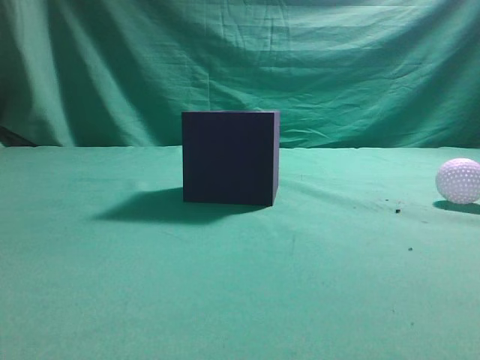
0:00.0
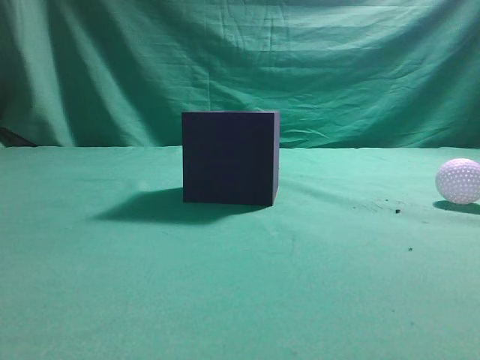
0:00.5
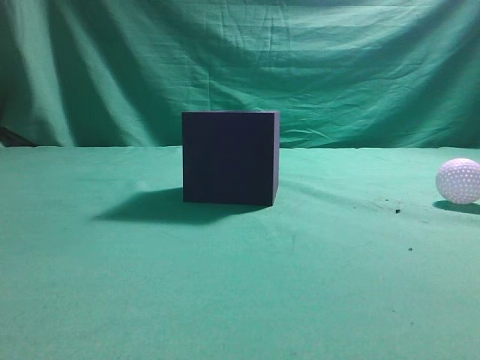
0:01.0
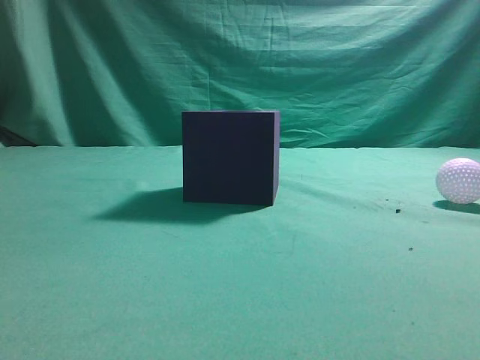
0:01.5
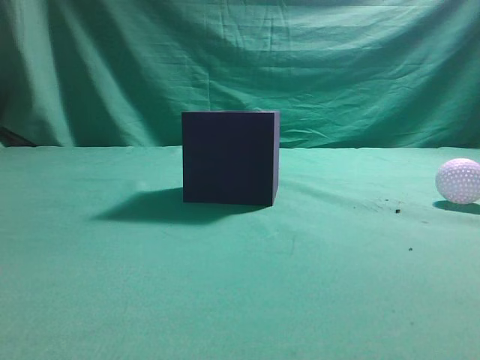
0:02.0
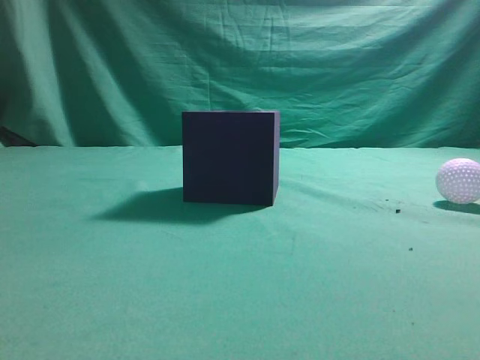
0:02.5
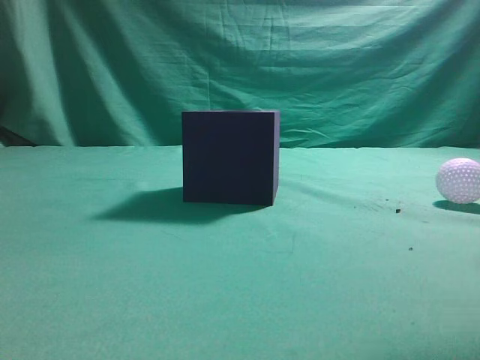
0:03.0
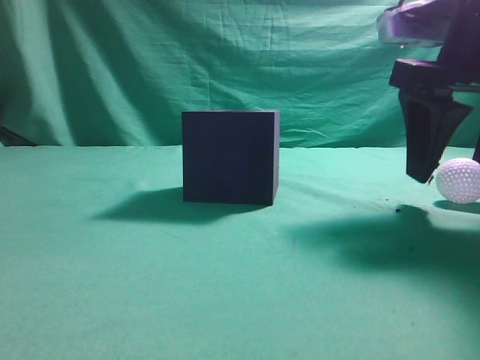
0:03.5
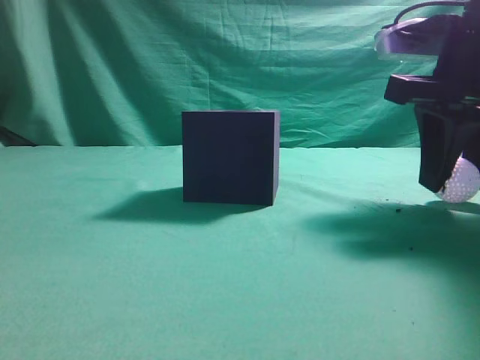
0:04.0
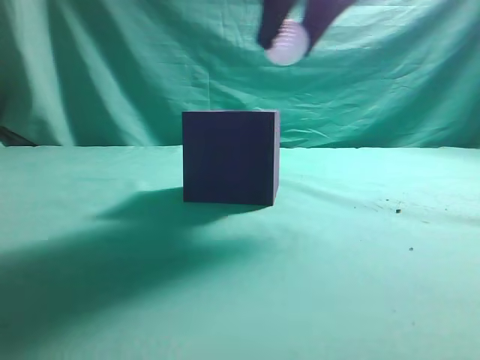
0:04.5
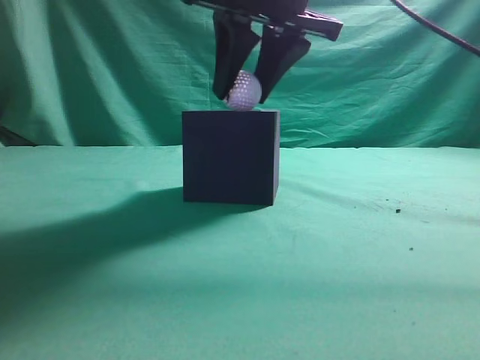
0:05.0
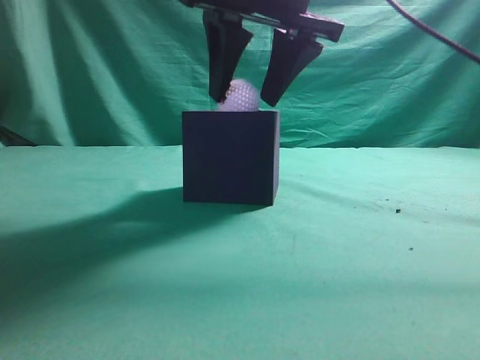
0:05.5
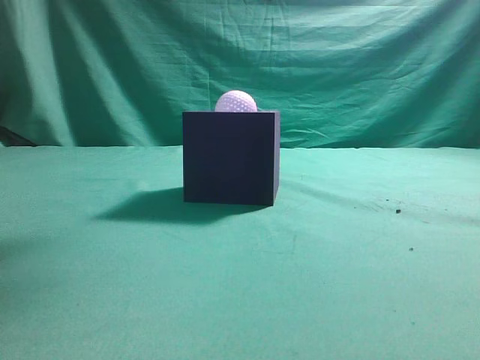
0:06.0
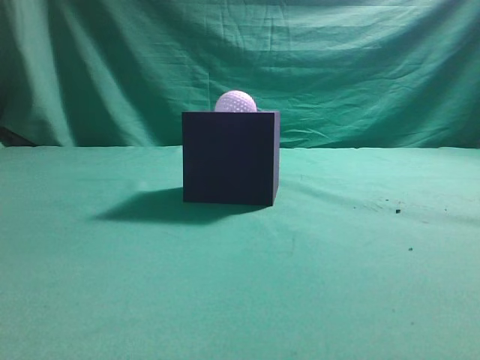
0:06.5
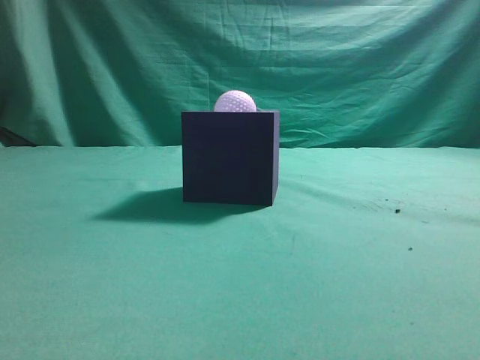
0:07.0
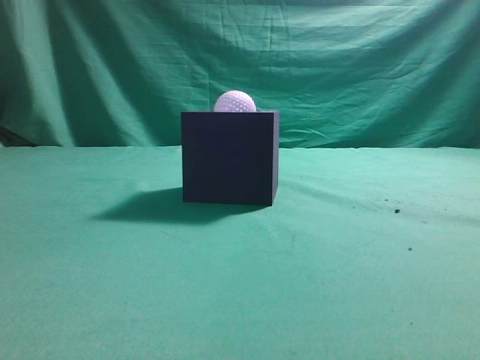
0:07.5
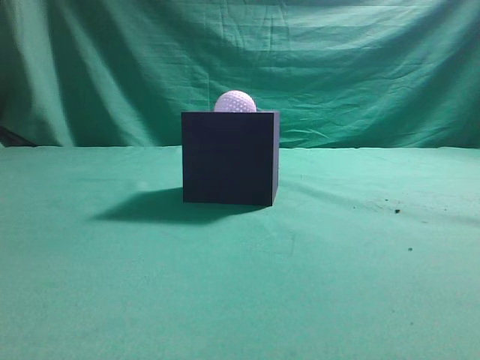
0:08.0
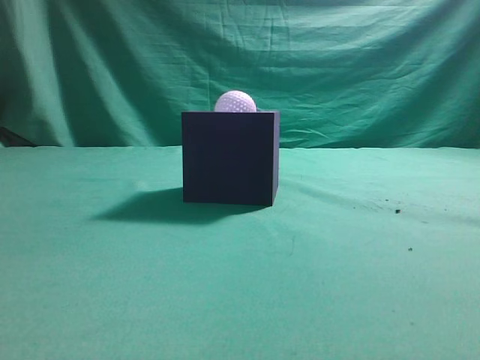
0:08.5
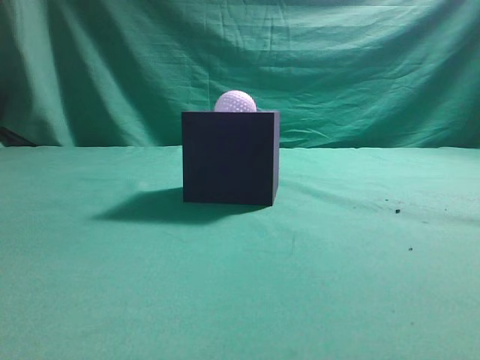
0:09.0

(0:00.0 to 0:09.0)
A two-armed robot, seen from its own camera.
Task of the whole recording: Pick up the ball and place it in the circular groove above the cube.
Step, 0:00.0 - 0:04.0: Grasp the sphere on the table.
Step, 0:04.5 - 0:05.5: Place the sphere into the sphere-shaped recess.
0:02.0 - 0:04.5: The right gripper goes approximately 30 cm forward and to the left, and opens its fingers.
0:04.5 - 0:07.0: The right gripper goes some 30 cm backward, to the right and upward, and closes up.
